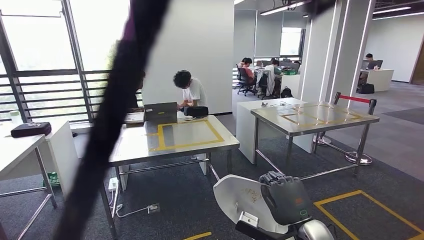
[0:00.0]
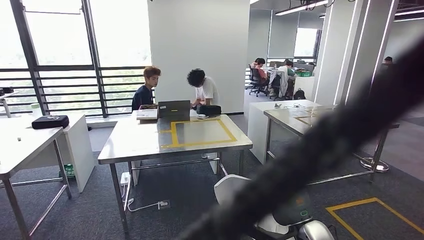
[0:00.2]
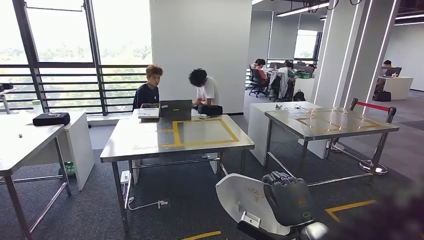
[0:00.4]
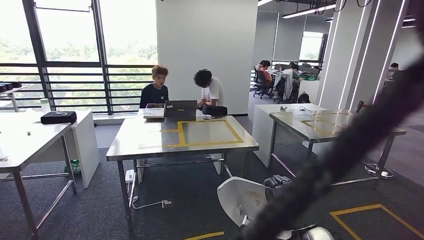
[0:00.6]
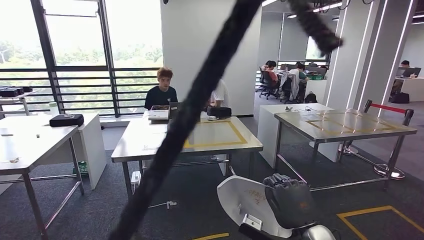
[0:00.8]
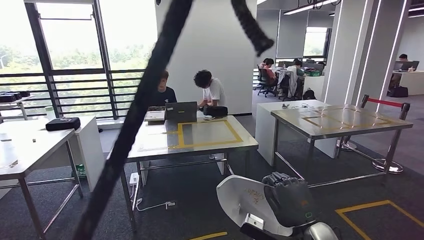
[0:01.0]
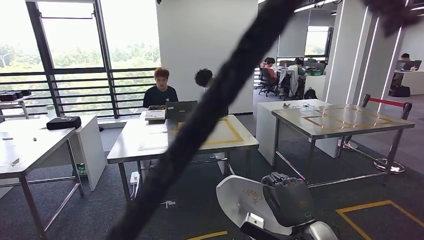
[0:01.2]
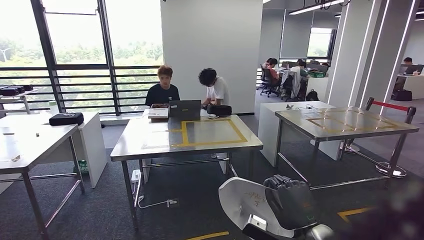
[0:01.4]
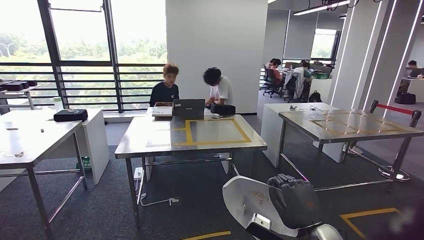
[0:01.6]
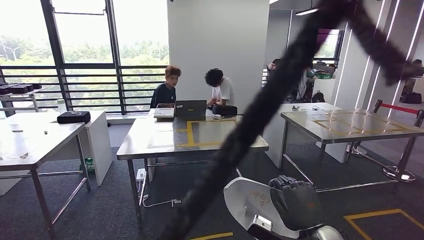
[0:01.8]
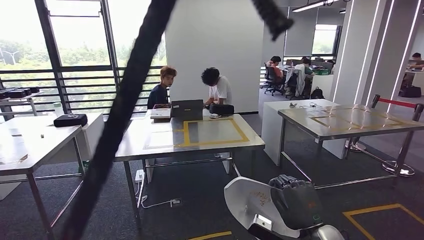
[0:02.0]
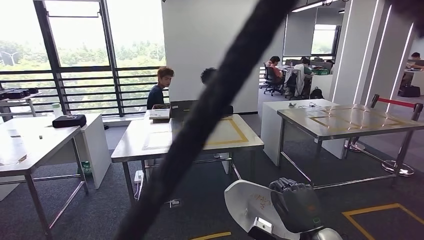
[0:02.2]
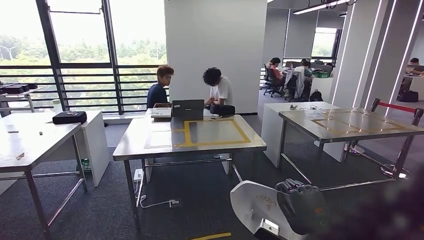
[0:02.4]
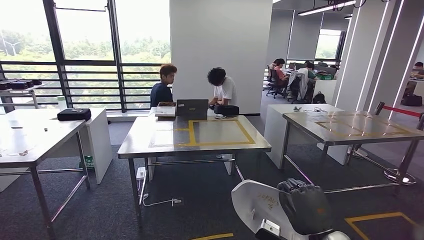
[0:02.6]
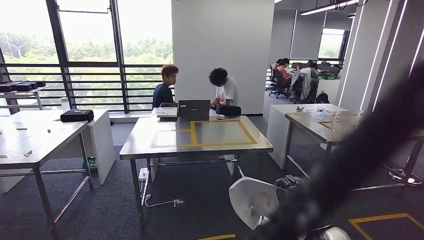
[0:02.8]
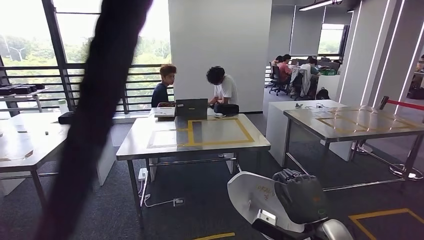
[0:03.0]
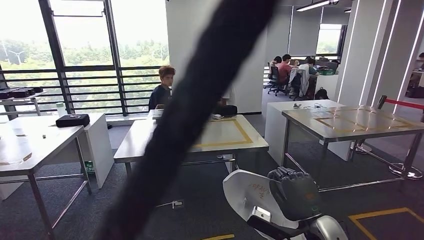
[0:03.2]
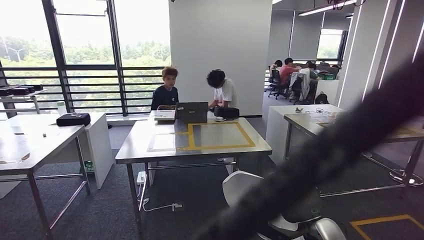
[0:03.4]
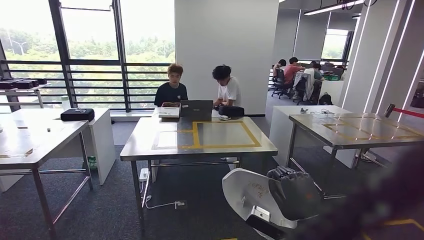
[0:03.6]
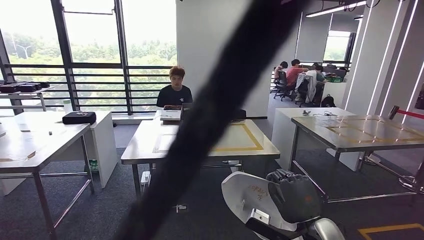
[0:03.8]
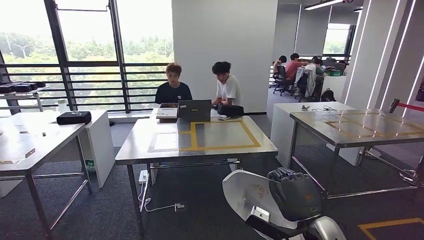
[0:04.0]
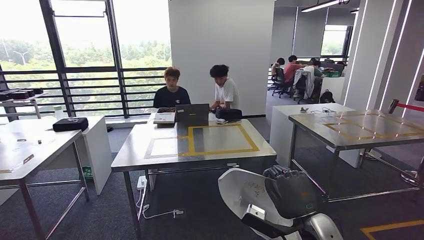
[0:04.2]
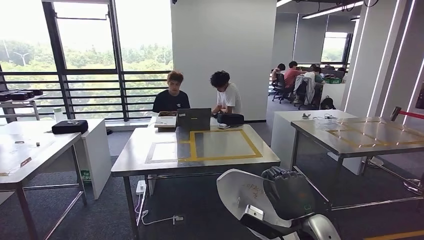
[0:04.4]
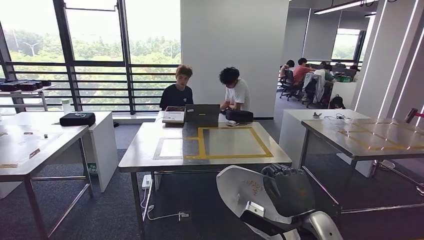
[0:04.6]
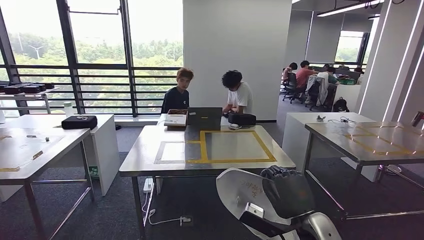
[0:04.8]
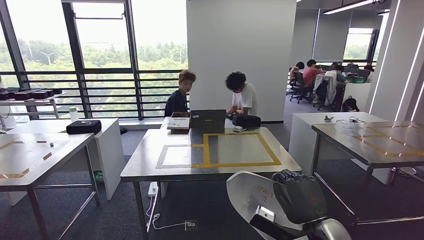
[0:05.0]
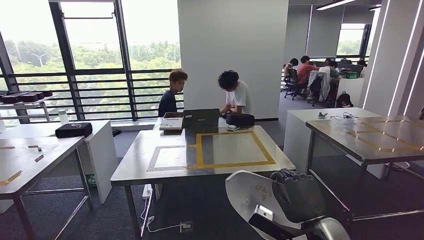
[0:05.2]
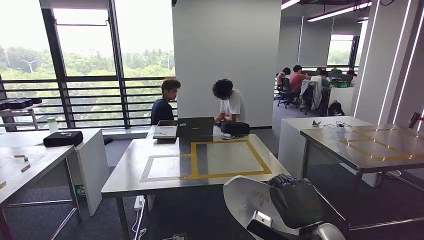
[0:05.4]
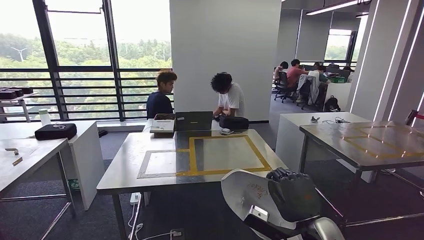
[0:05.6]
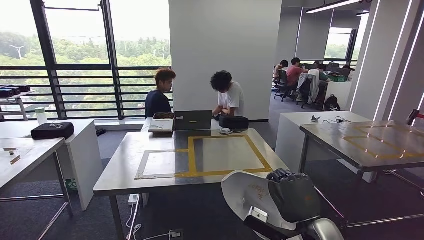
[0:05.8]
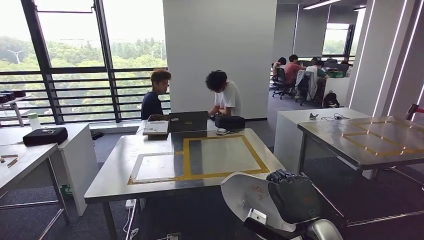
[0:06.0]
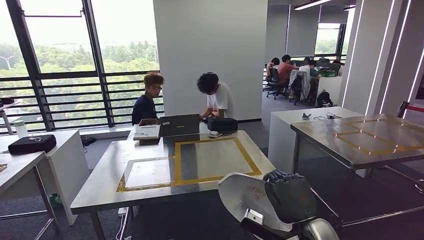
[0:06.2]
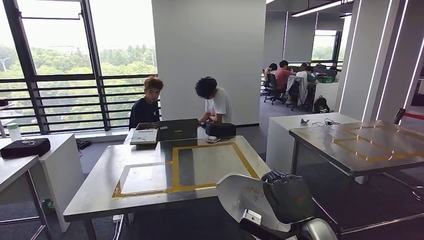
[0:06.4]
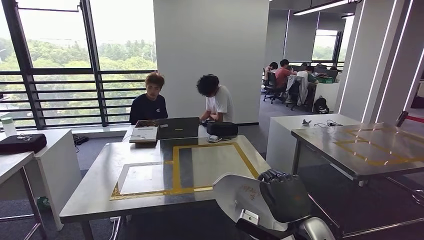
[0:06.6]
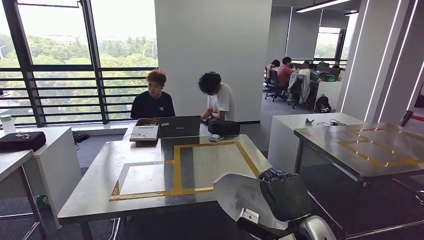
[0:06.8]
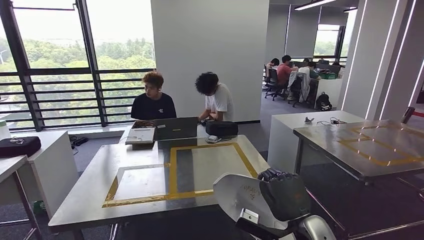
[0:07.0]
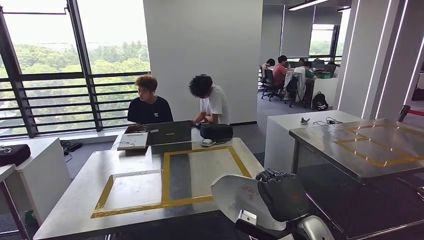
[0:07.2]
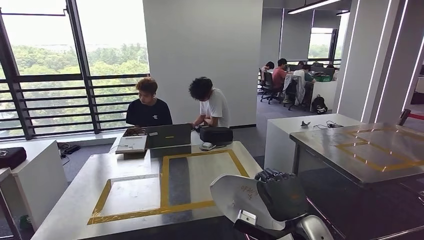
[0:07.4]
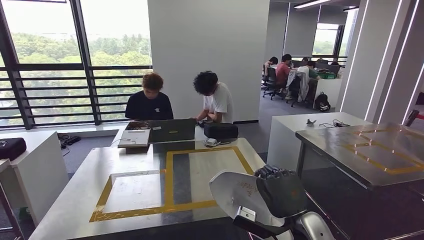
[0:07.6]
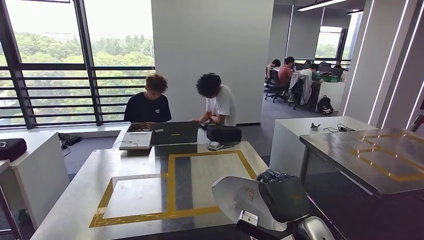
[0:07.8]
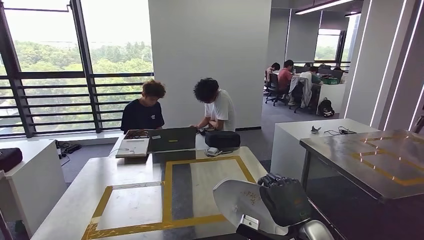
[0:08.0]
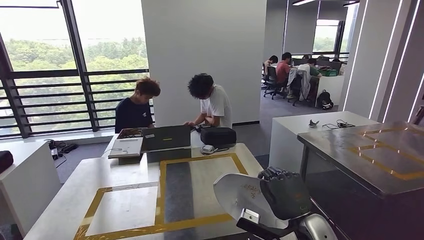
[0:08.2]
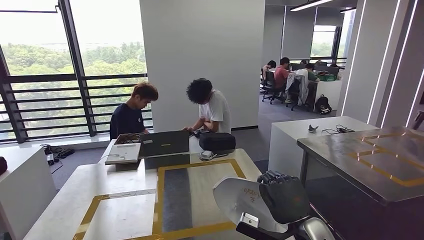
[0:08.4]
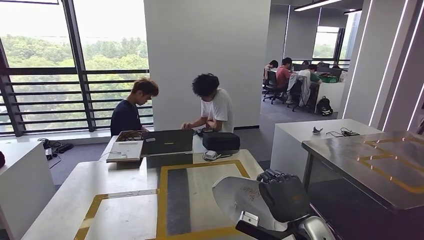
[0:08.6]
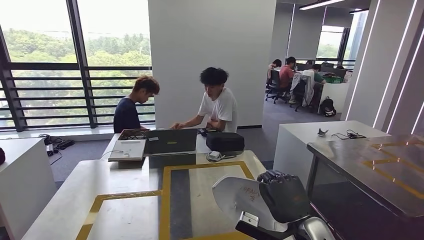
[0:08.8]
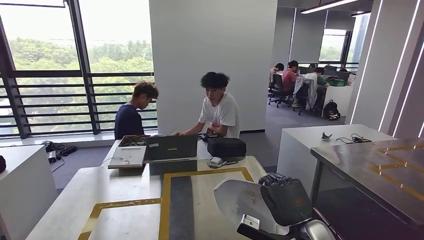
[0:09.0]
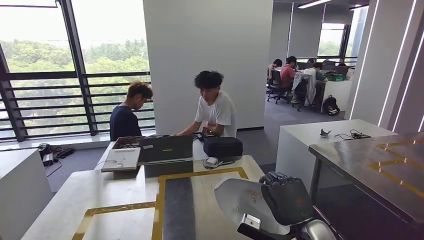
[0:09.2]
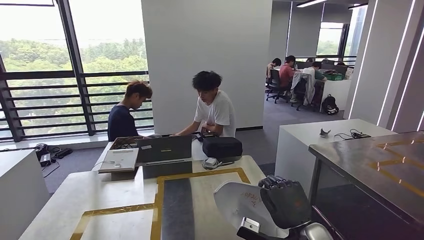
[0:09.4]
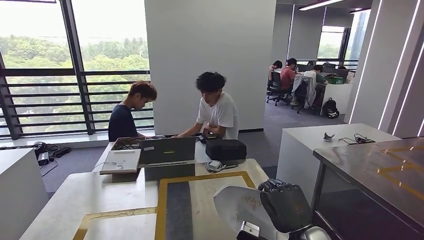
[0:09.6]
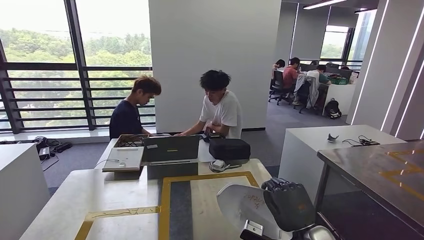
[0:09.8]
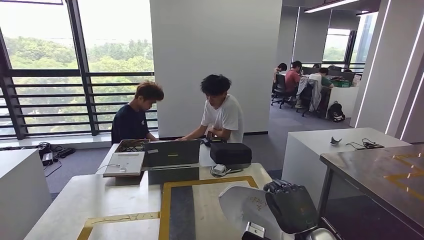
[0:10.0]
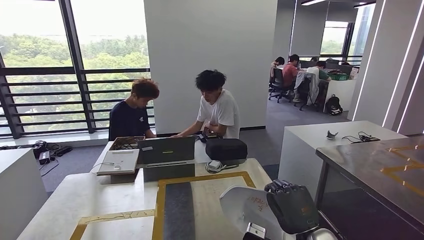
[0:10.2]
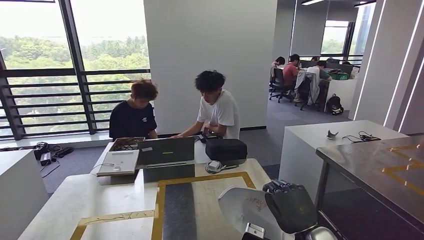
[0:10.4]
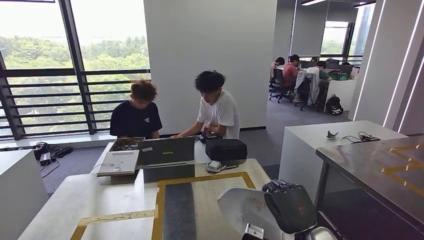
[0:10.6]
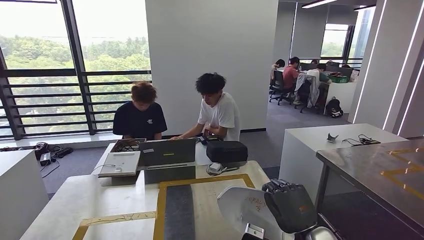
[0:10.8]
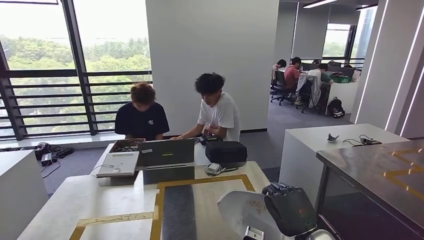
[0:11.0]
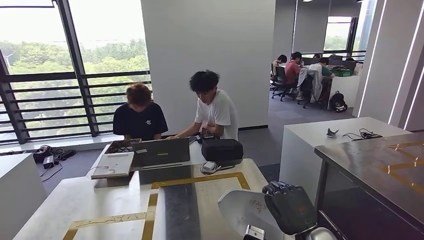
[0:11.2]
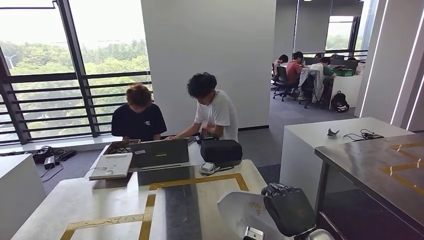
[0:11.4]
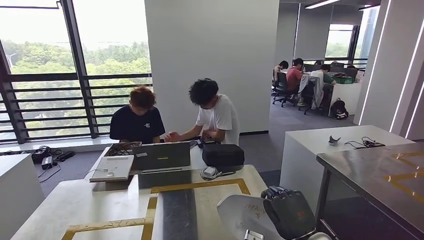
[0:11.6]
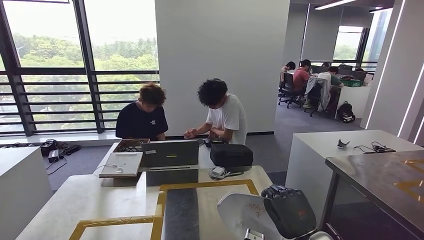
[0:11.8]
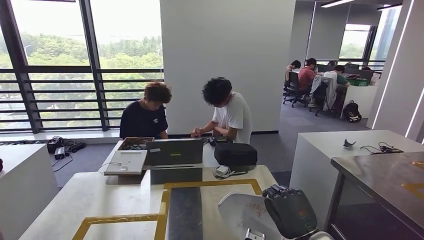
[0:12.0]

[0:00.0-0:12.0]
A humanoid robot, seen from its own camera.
Step, 0:00.0 to 0:09.6: Move the small parts to the workbench.

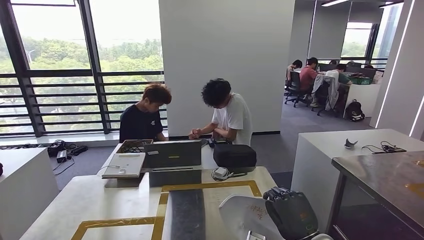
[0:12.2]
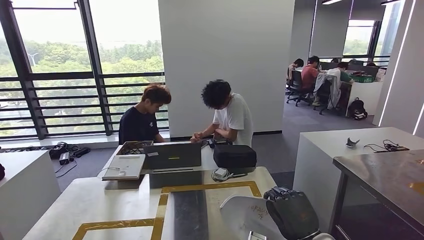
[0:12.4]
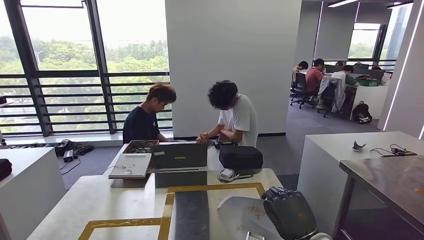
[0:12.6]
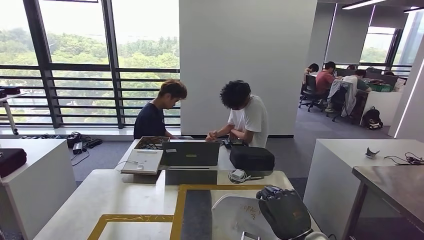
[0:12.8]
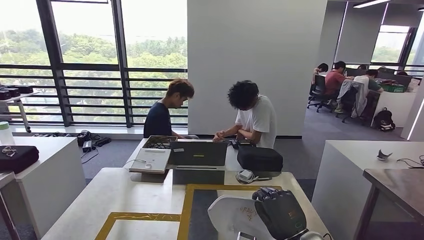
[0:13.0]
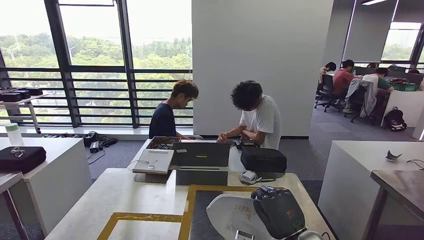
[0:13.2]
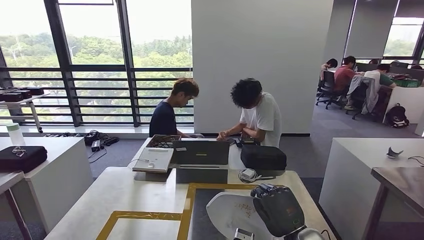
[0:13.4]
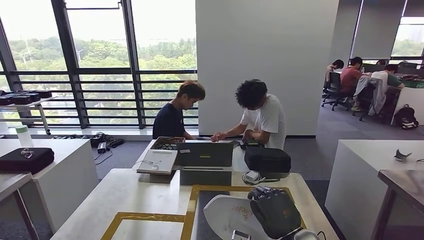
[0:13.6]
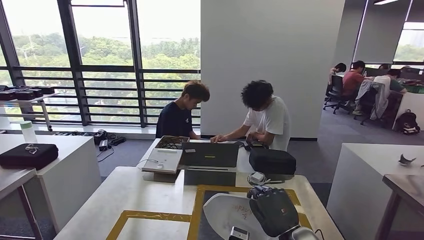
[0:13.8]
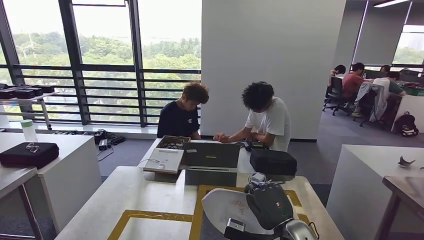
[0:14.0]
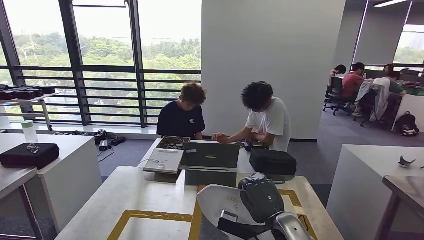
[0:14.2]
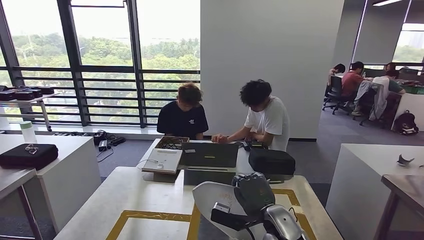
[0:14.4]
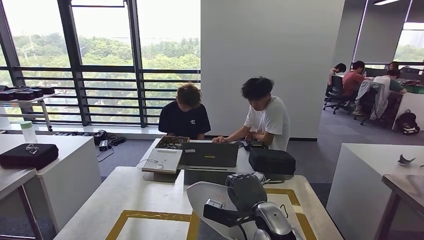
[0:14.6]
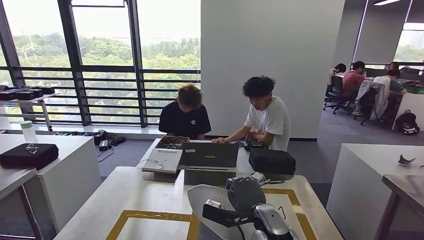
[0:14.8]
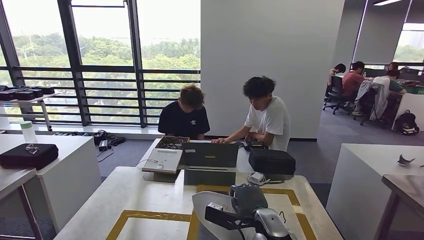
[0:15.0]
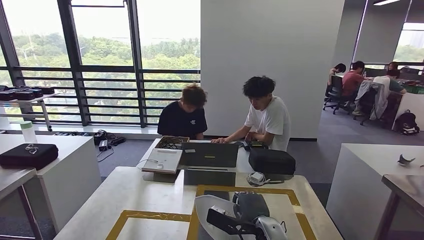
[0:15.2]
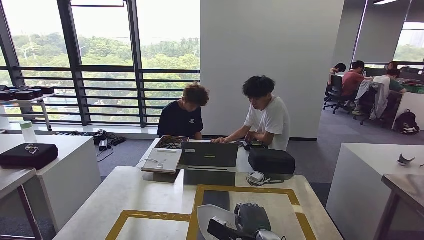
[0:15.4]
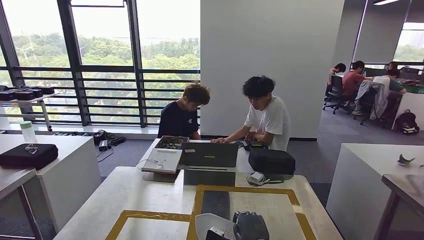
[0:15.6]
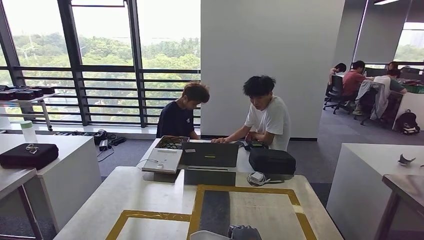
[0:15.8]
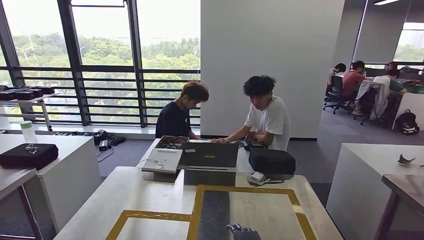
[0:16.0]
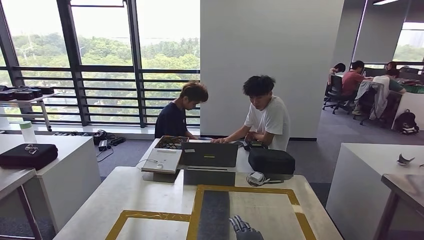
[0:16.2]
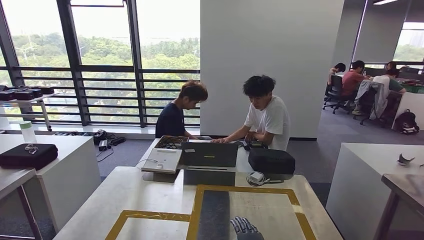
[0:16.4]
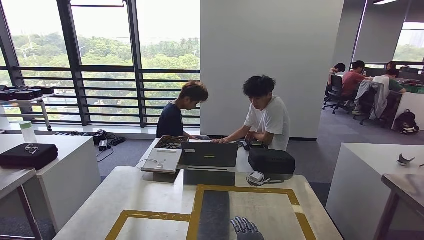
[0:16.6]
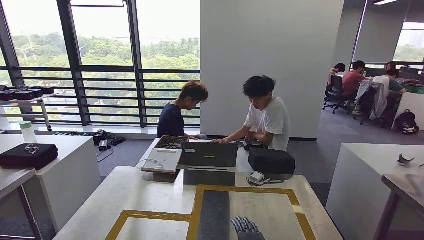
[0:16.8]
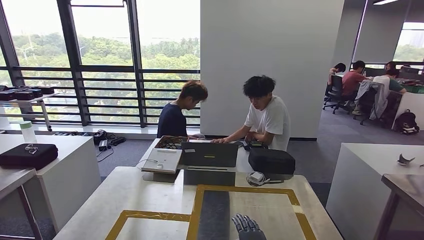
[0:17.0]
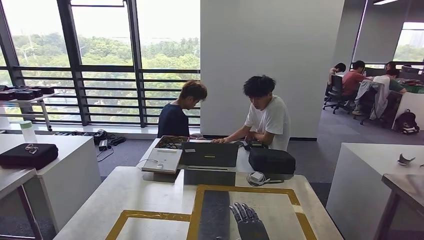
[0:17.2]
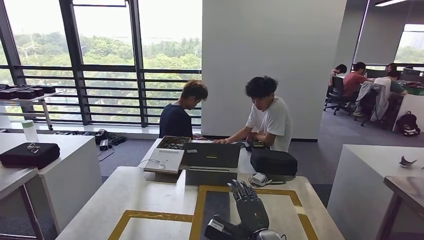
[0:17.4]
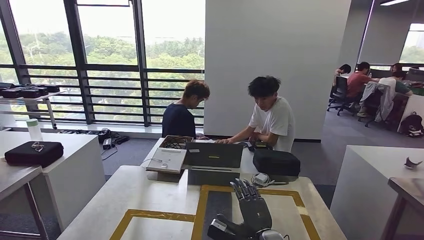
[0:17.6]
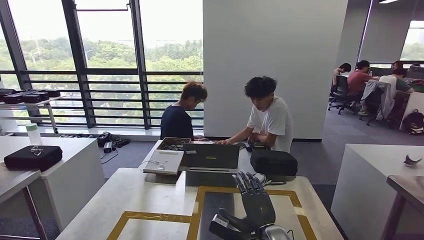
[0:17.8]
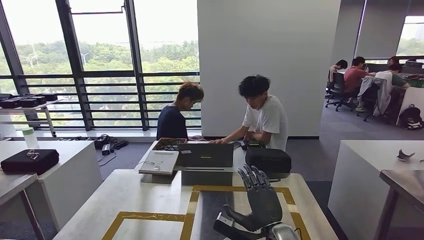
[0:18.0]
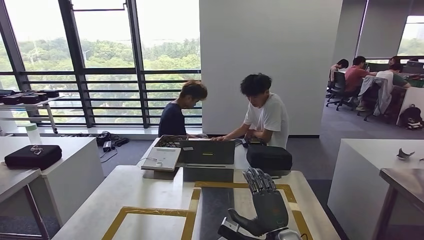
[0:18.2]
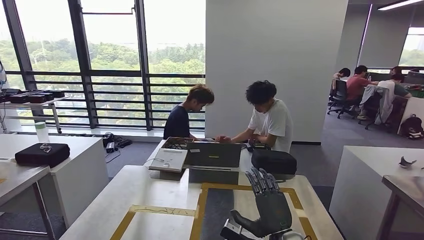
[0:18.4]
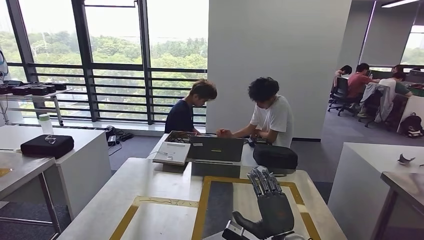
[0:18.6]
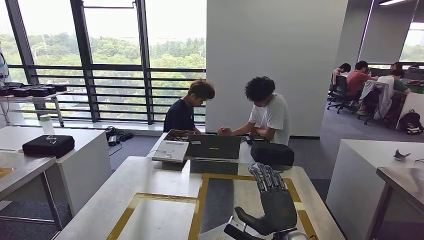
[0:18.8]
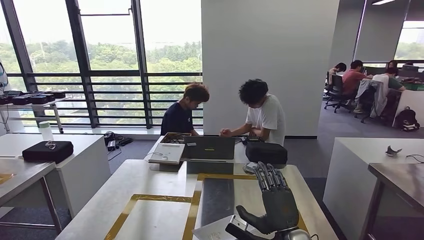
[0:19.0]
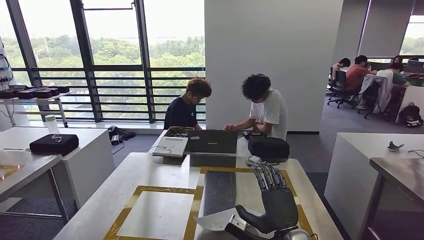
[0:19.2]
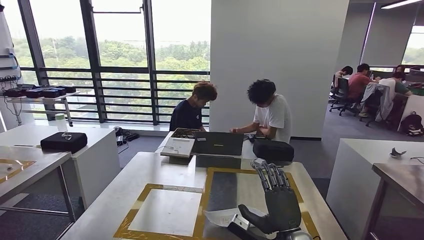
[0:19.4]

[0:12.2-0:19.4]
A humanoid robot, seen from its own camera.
Step, 0:12.2 to 0:18.0: Insert the small parts into the corresponding holes on the workbench.
0:15.0 to 0:16.6: The right hand moves downward and backward, about 15 cm.
